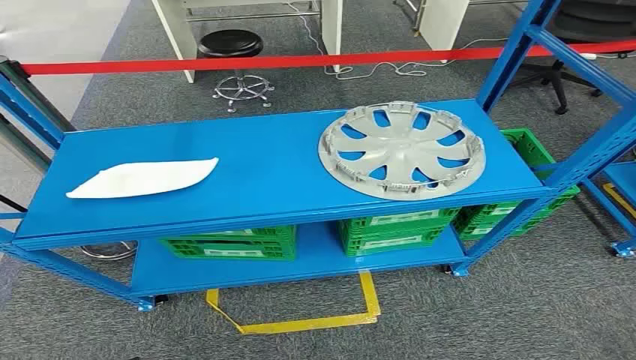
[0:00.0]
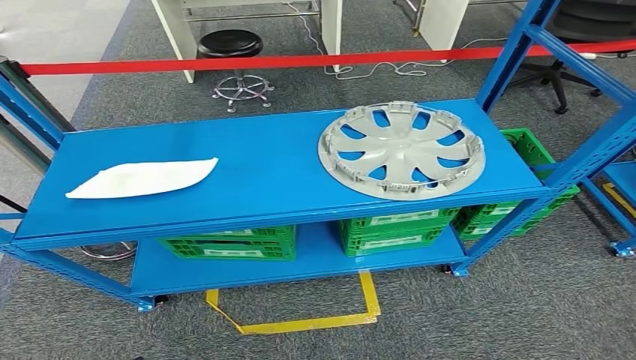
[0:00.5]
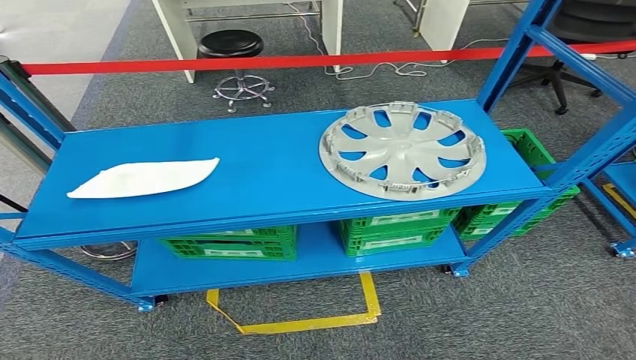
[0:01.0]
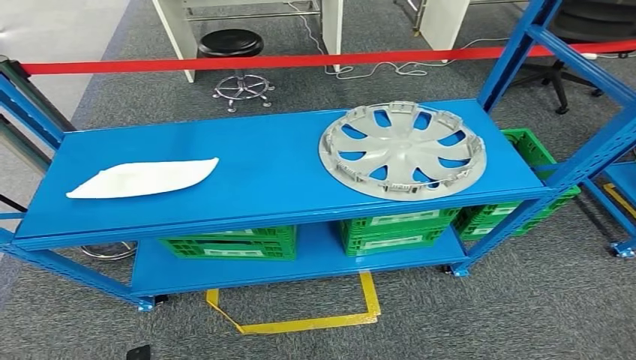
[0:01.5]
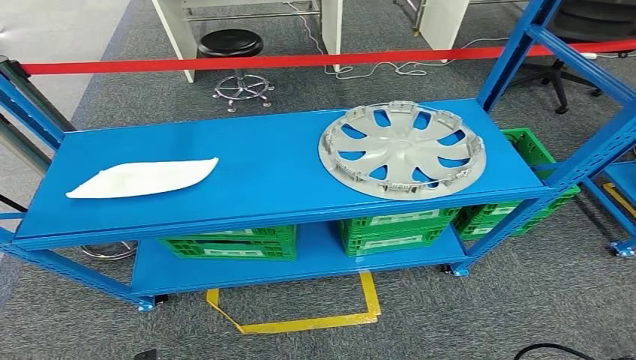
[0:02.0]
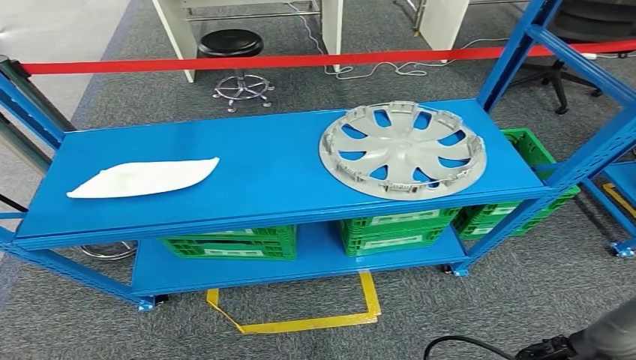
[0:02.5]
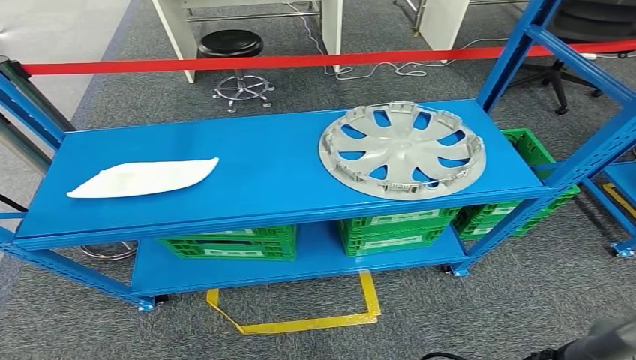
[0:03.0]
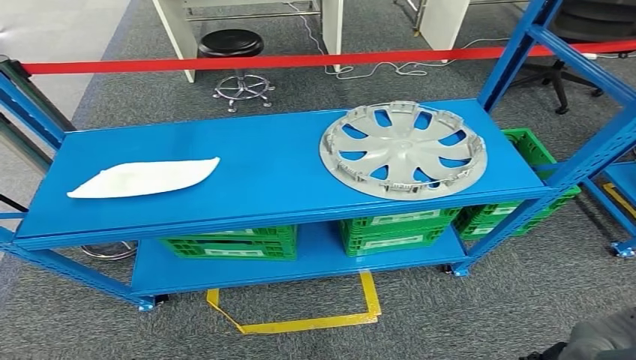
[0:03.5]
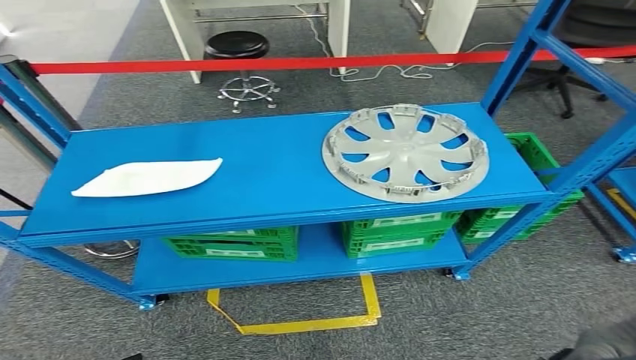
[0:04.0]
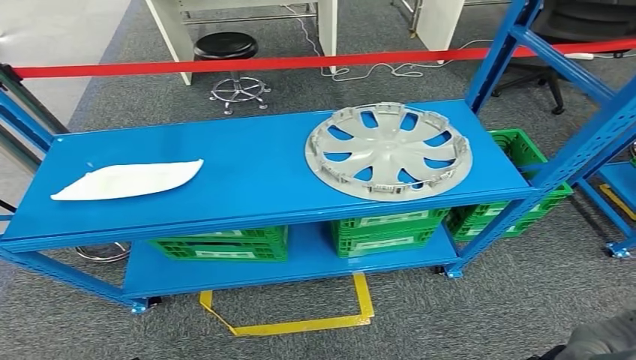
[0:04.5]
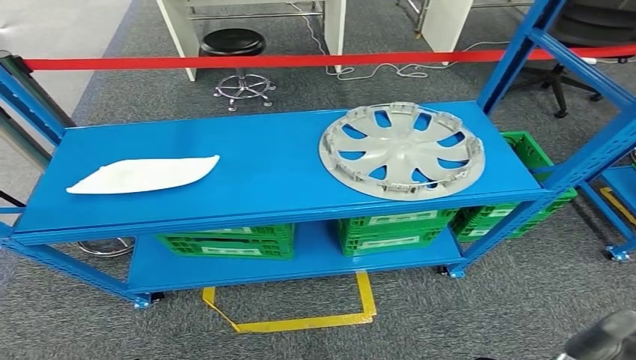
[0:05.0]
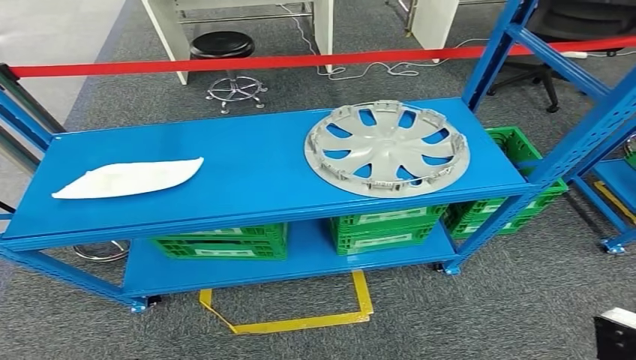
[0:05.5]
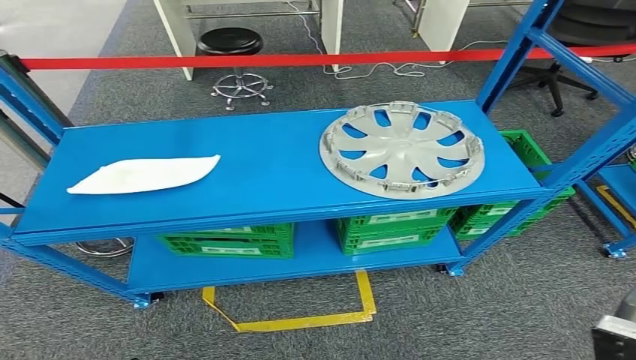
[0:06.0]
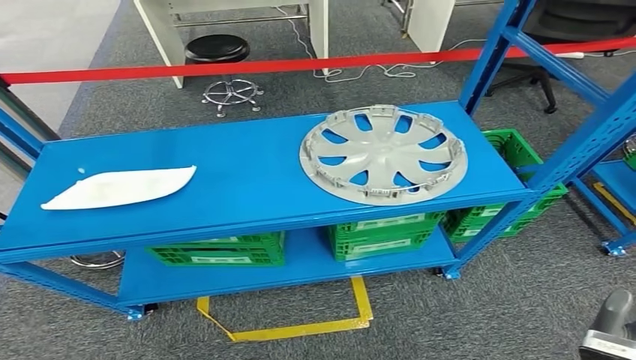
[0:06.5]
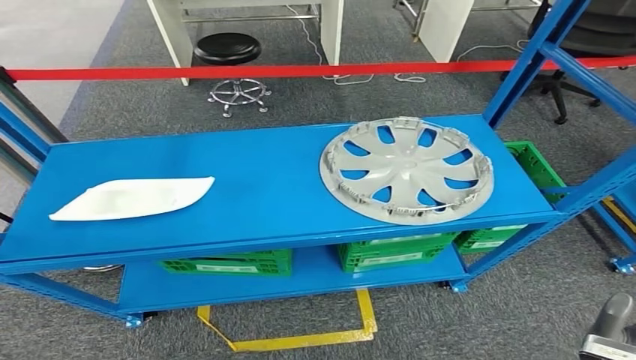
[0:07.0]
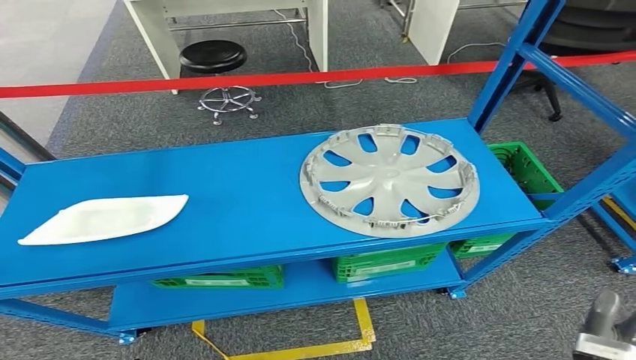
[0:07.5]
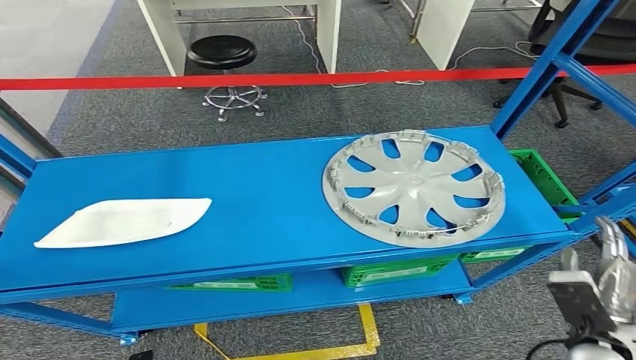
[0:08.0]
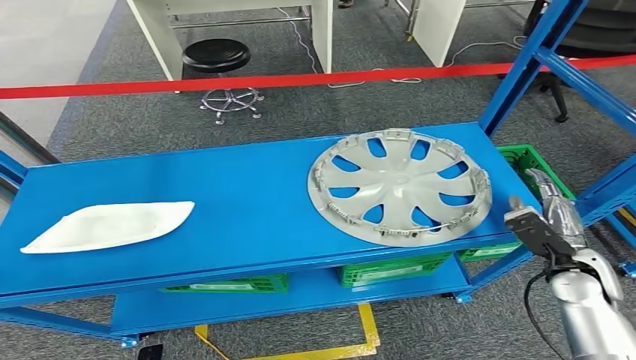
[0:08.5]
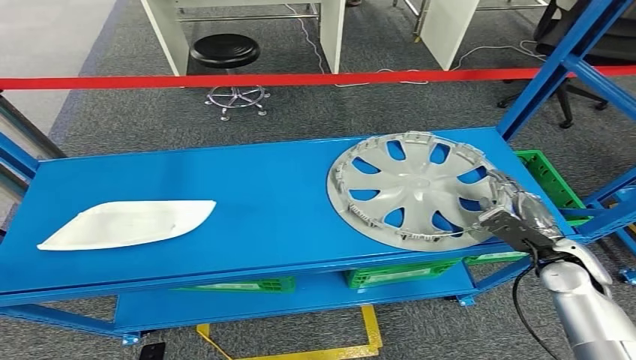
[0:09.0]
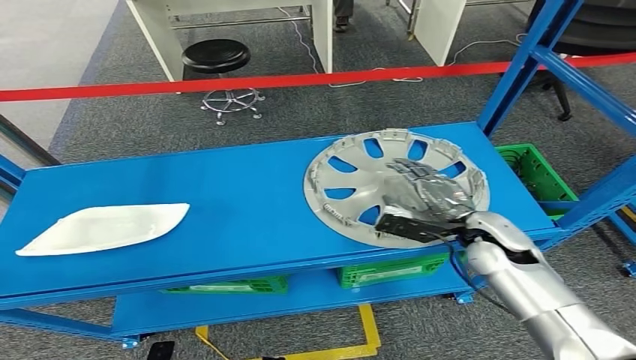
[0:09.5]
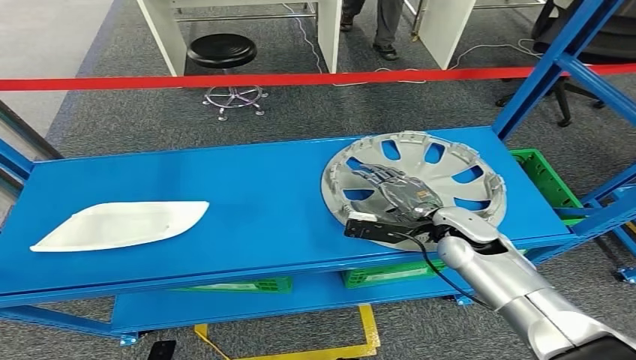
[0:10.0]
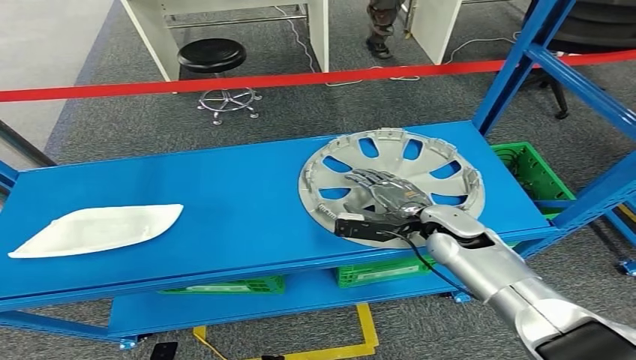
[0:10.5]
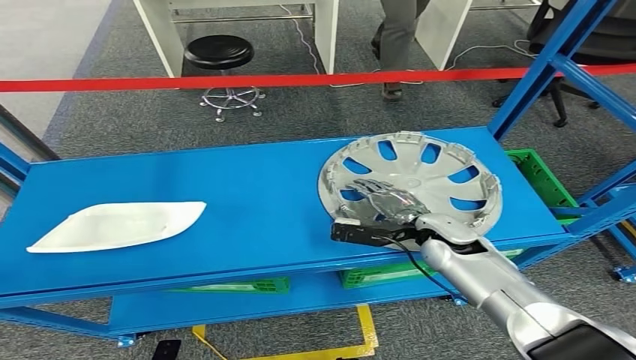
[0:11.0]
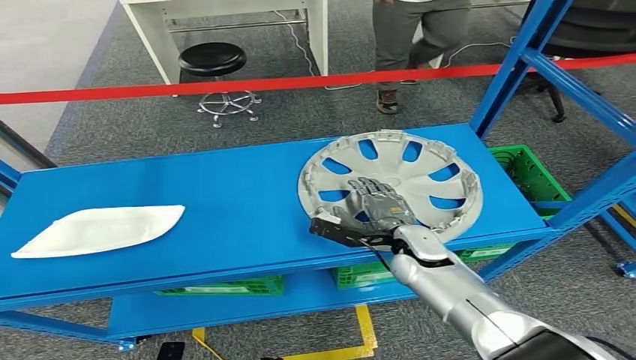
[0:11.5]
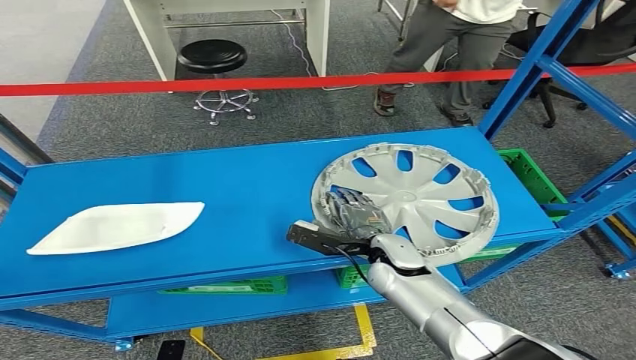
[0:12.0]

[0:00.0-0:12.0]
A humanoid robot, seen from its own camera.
2.0 to 4.0 s: The right hand travels to the left by about 10 cm.
4.0 to 6.0 s: The right hand shifts approximately 15 cm to the right and downward.

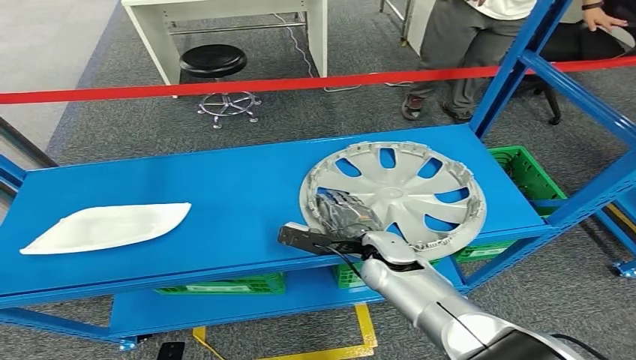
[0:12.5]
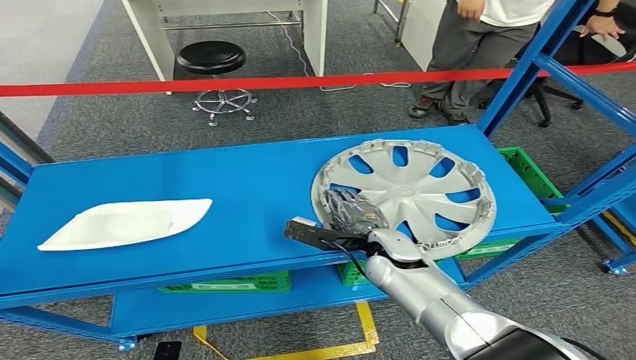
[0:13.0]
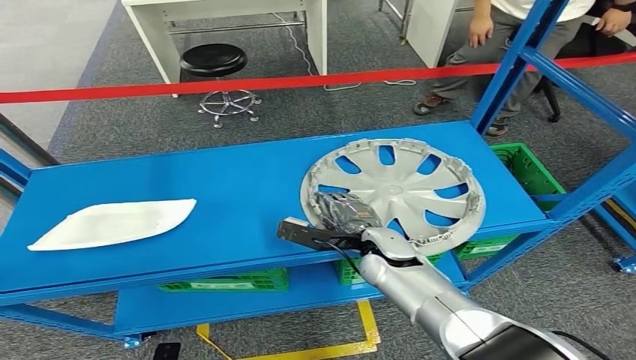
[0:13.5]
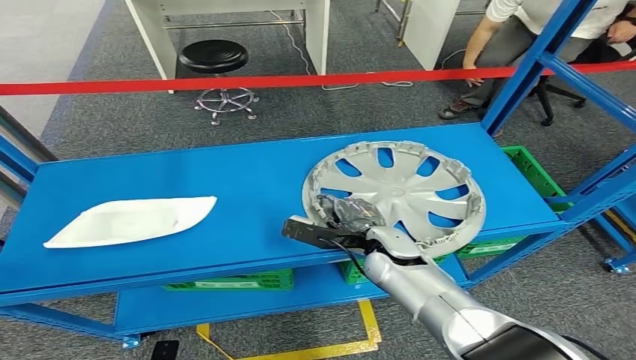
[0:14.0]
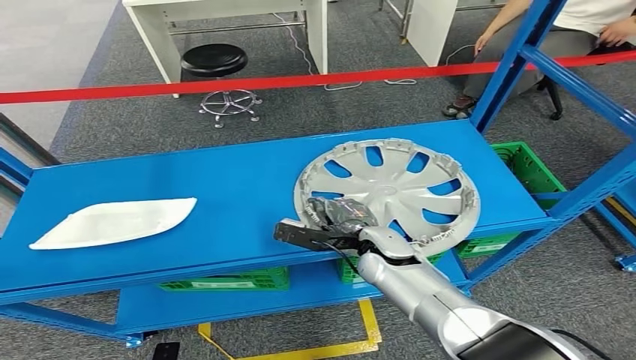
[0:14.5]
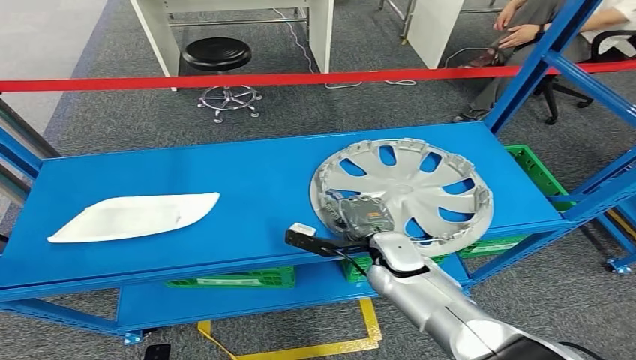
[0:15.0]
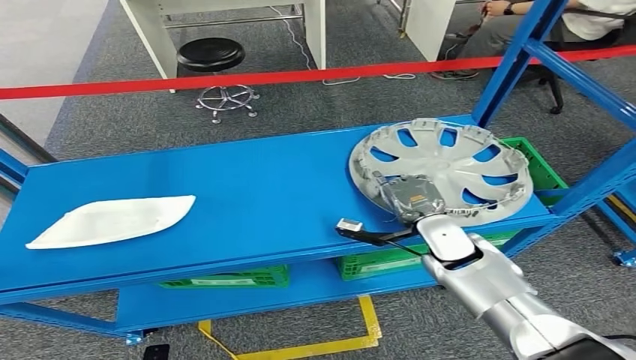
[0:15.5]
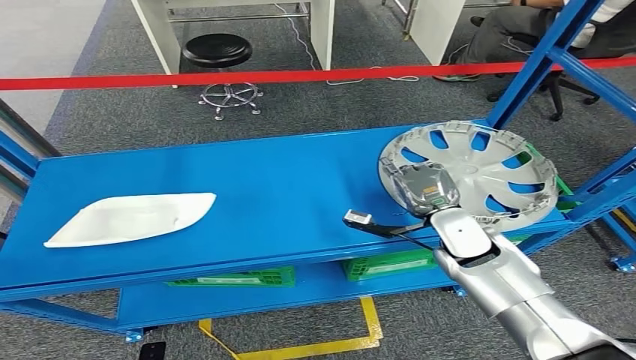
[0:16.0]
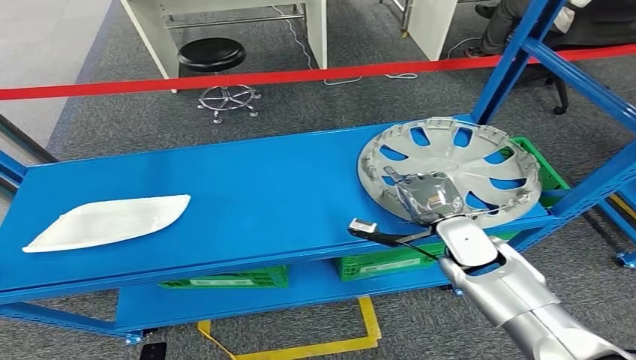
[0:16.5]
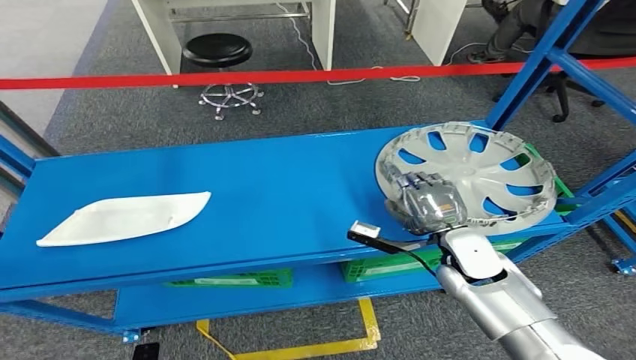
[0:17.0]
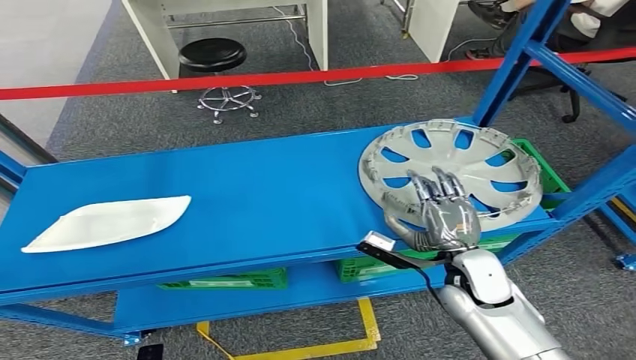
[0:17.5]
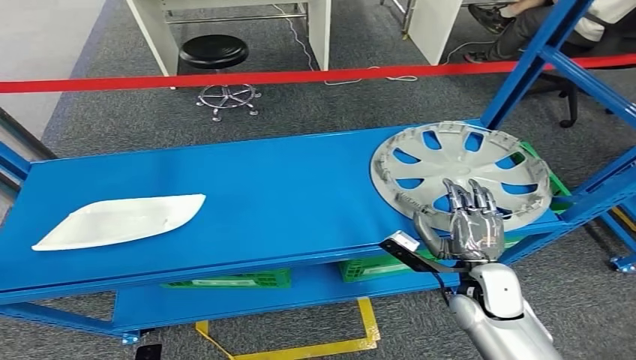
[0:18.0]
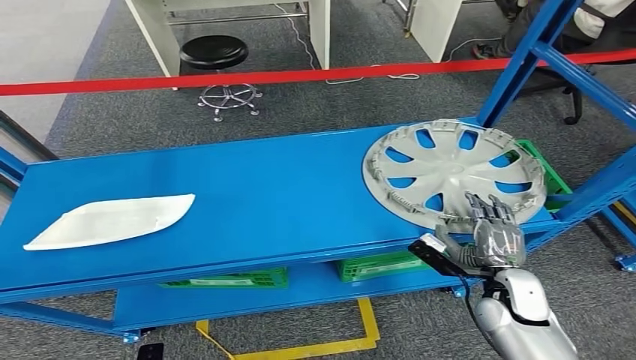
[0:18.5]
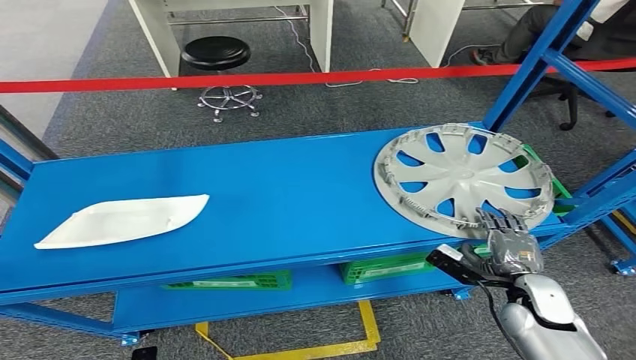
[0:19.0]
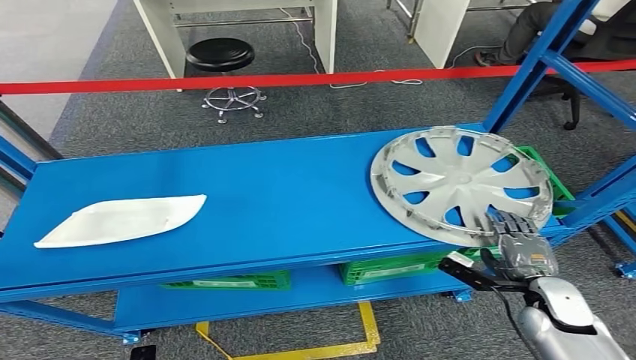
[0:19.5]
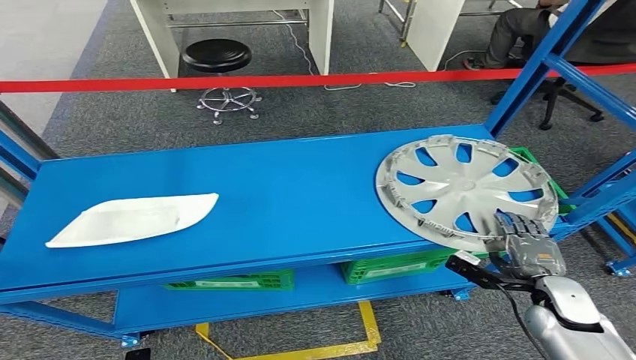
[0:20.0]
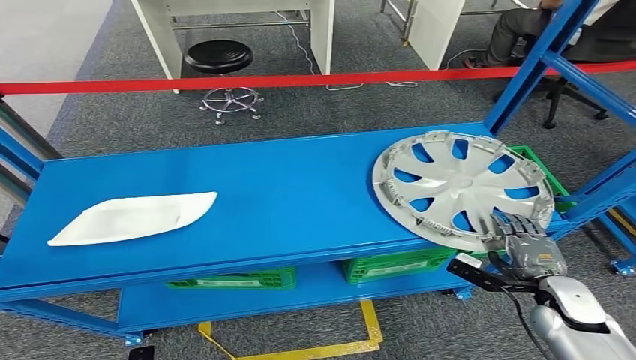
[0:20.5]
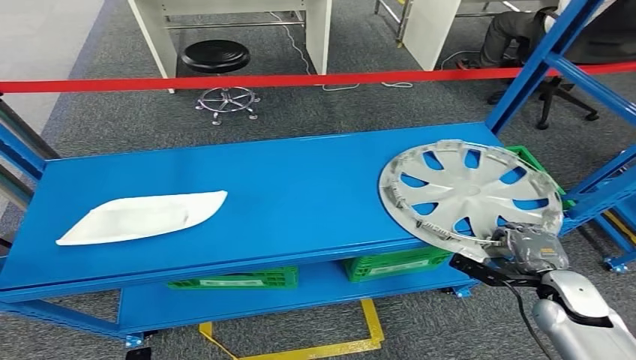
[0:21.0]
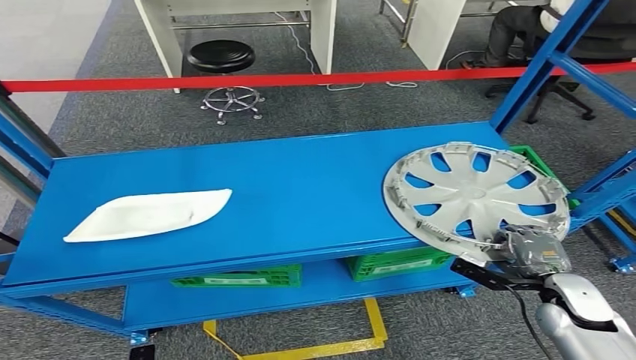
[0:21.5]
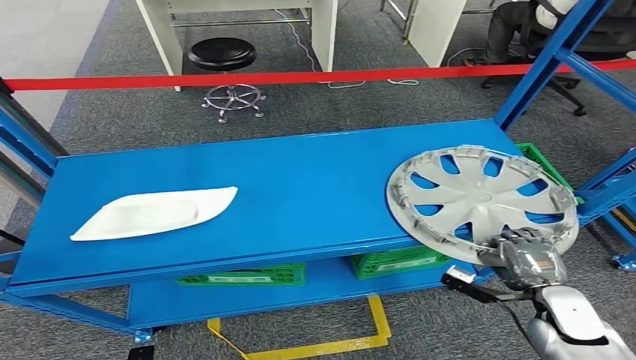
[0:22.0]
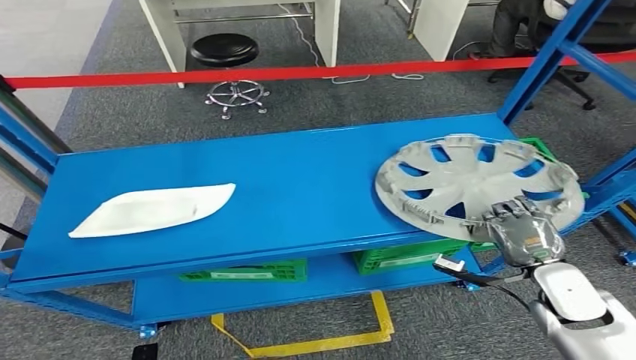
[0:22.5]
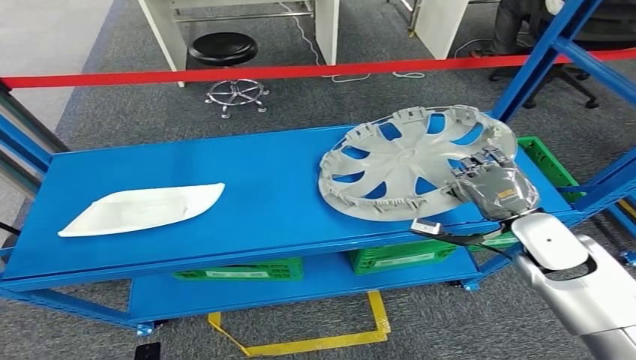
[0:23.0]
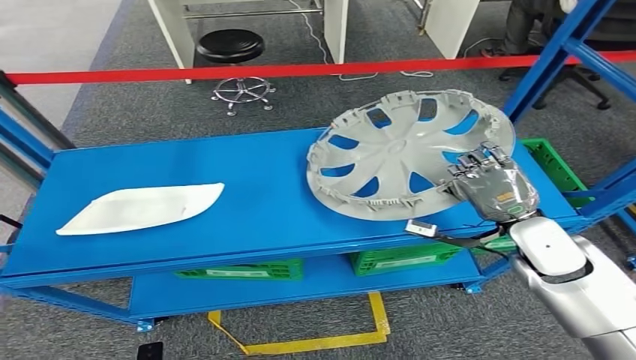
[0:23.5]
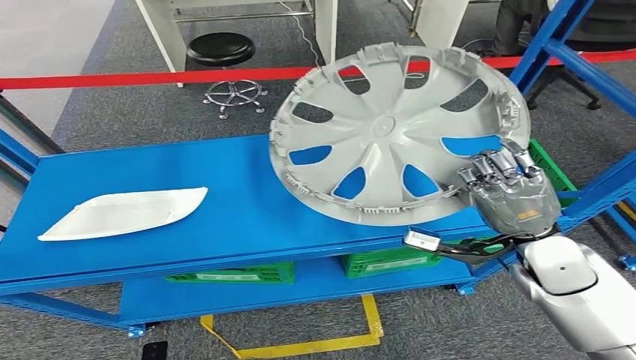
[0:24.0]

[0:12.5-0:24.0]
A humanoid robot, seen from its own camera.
16.5 to 18.5 s: The right hand shifts approximately 15 cm backward, to the right and downward.
